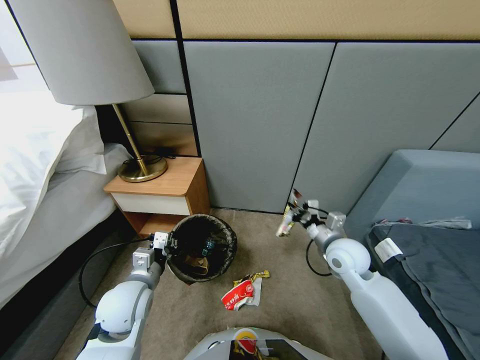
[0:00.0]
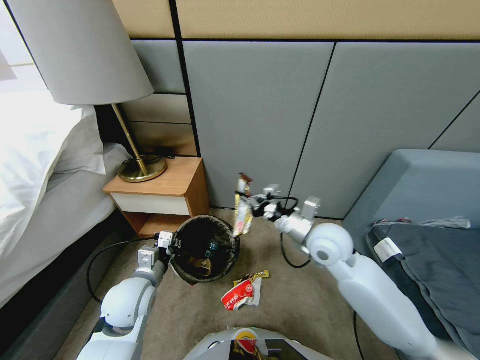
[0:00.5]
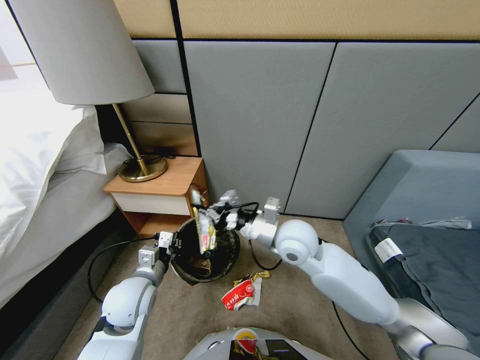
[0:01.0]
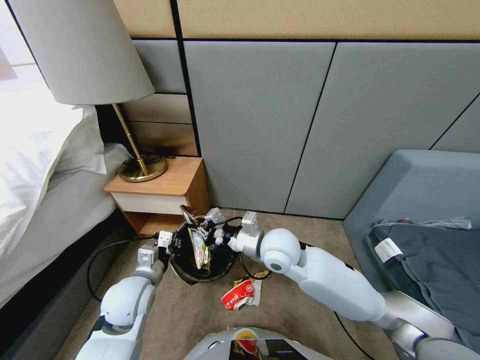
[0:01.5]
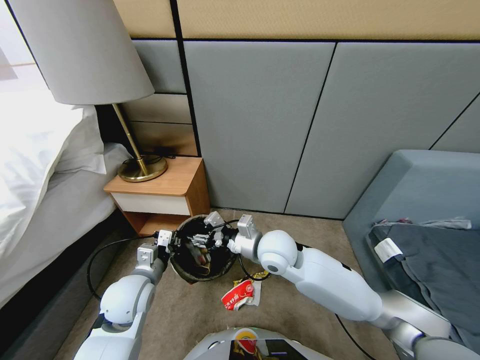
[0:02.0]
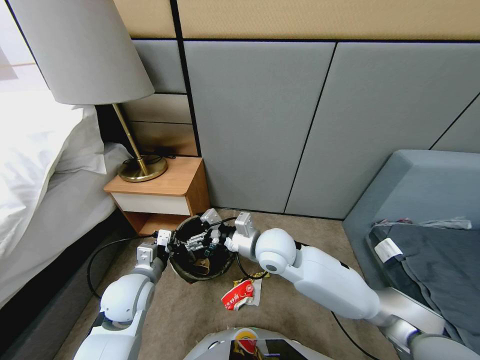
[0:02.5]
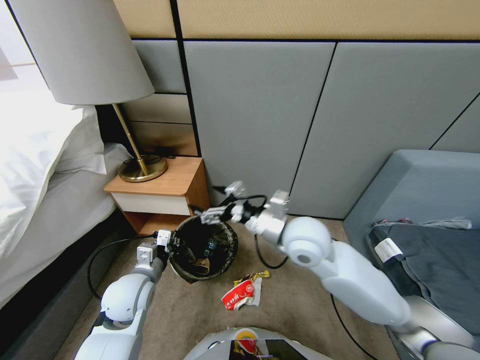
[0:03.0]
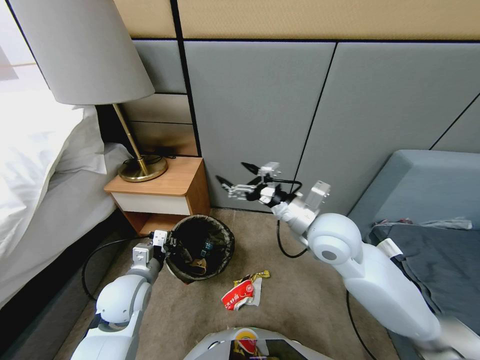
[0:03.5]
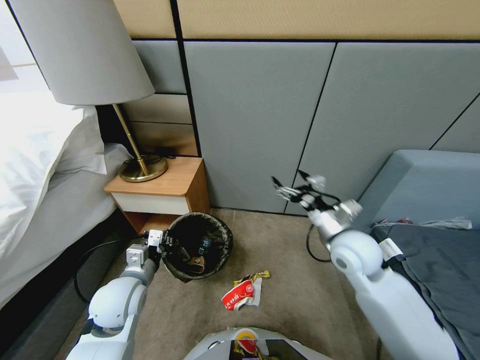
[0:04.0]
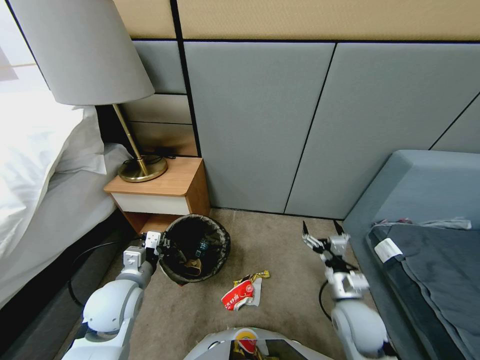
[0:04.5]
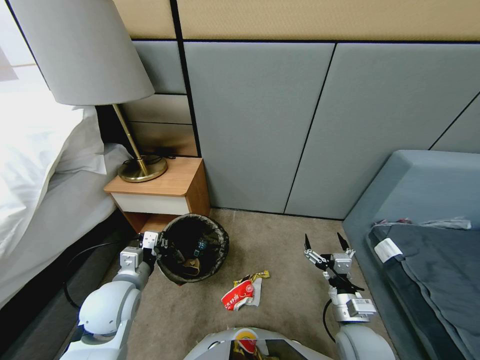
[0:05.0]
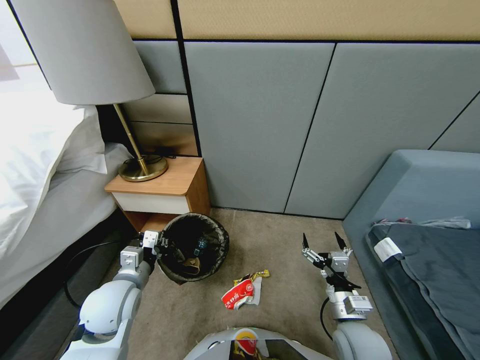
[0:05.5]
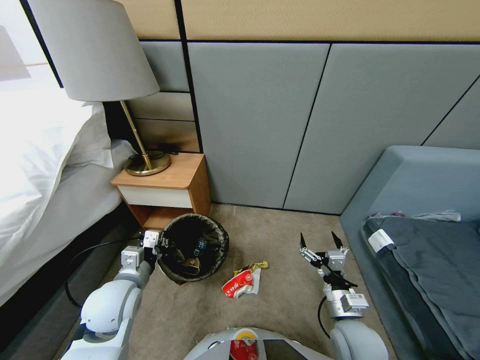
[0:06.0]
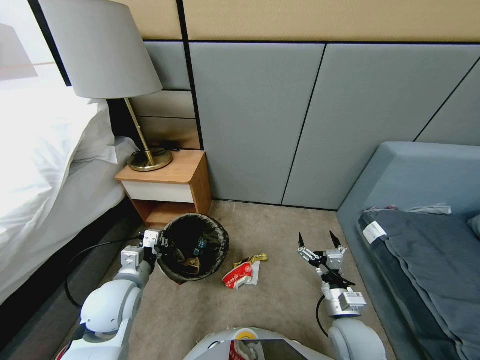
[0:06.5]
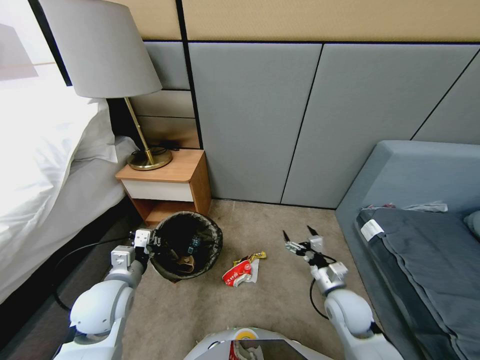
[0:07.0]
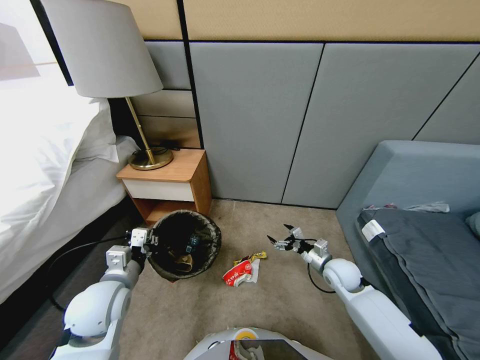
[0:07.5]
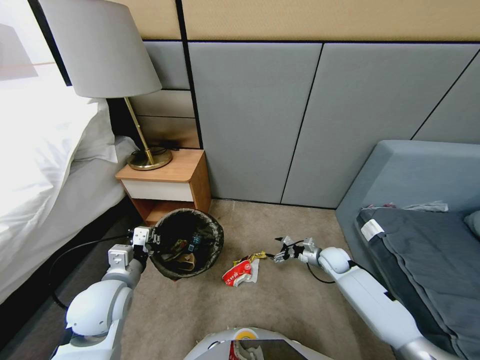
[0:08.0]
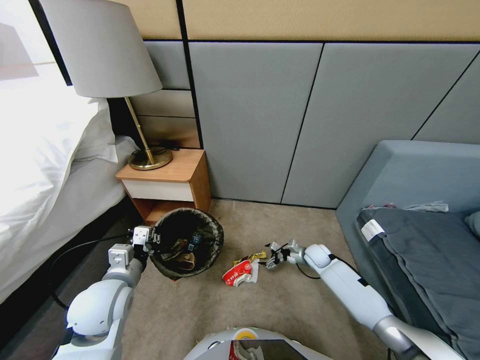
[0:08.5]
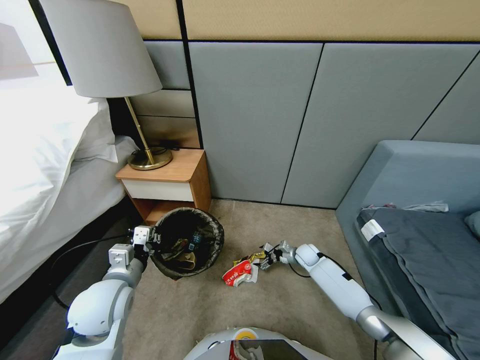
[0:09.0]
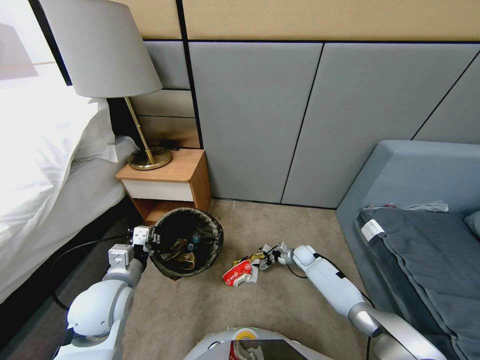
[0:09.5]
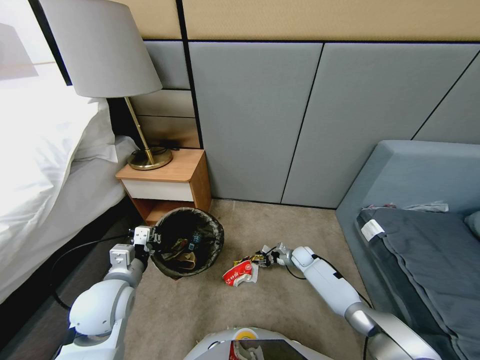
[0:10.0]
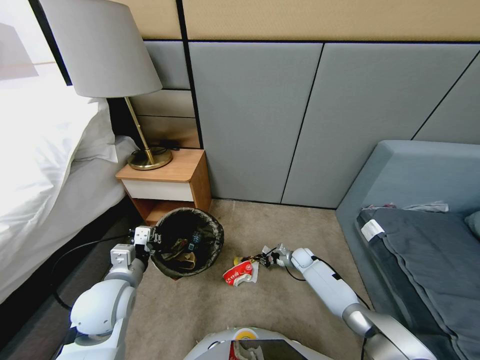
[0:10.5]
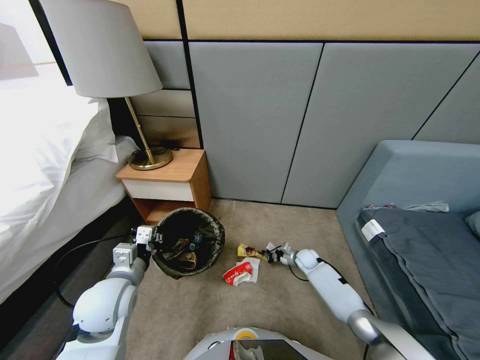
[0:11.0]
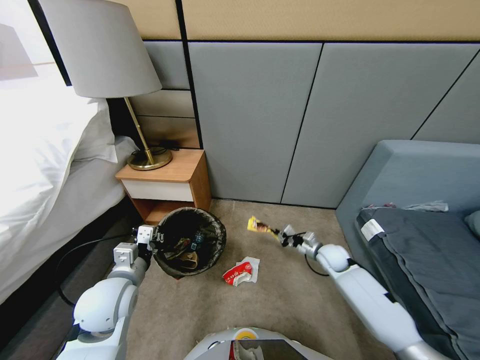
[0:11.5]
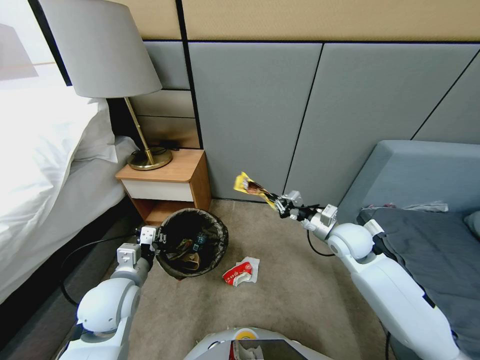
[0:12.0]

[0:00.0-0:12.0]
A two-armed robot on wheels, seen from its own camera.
Task of the whole recording: Pick up the trash bin, then pick up the garbage from the floor and place it into the trash bin.
0:00.0 to 0:02.0: The right gripper goes some 15 cm to the left, and opens up.
0:02.0 to 0:04.0: The right gripper travels to the right by roughly 20 cm.
0:04.0 to 0:06.0: The right gripper travels backward and downward by about 15 cm.
0:06.0 to 0:08.0: The right gripper heads forward and downward, covering some 25 cm.
0:08.0 to 0:10.0: The right gripper is displaced downward and to the left by about 10 cm, and closes up.
0:10.0 to 0:12.0: The right gripper heads upward, covering roughly 30 cm, and closes up.

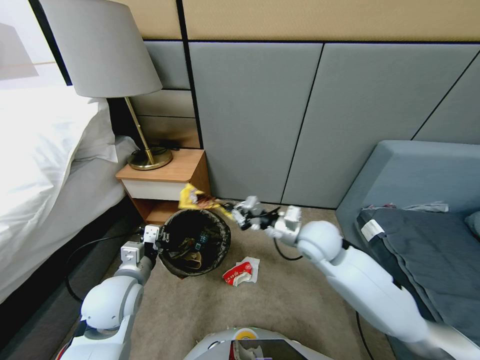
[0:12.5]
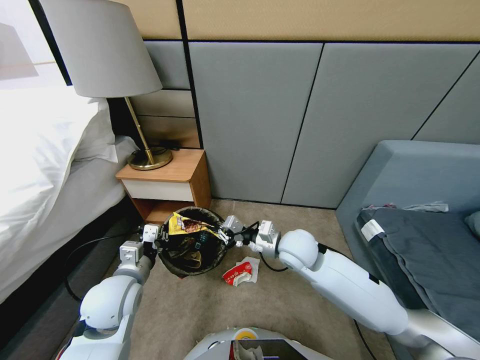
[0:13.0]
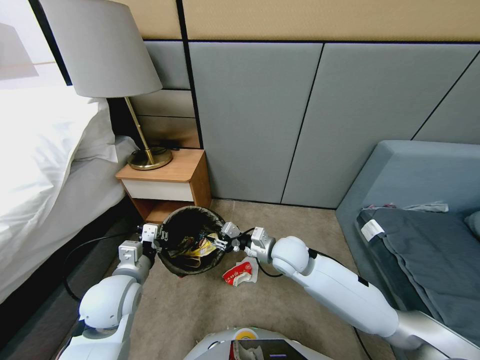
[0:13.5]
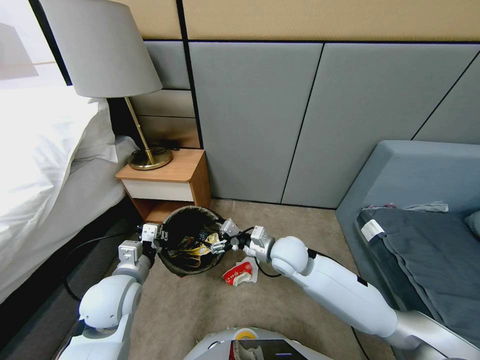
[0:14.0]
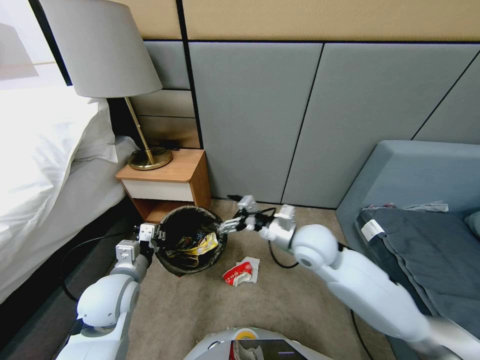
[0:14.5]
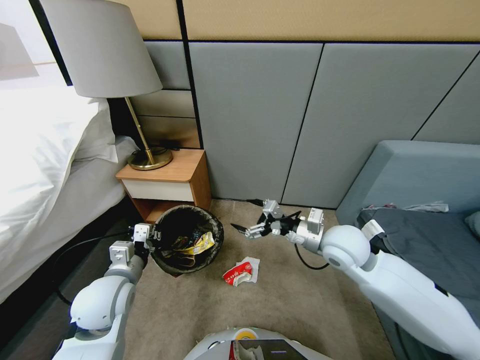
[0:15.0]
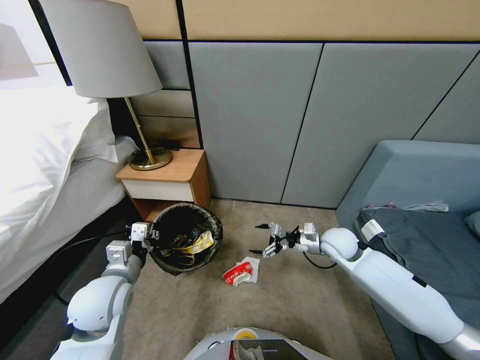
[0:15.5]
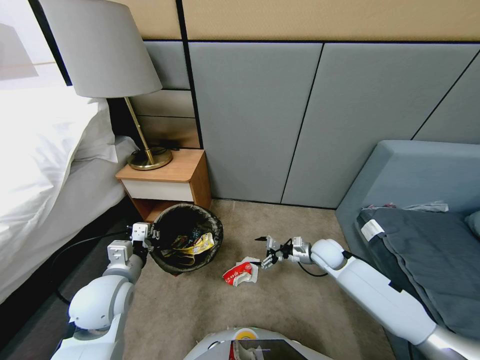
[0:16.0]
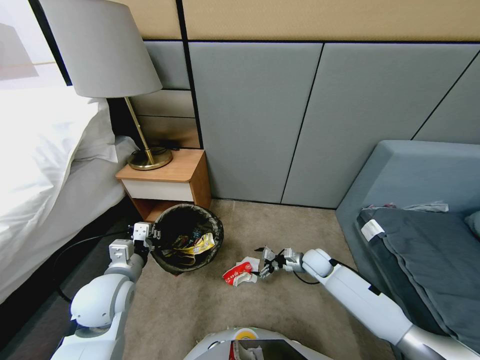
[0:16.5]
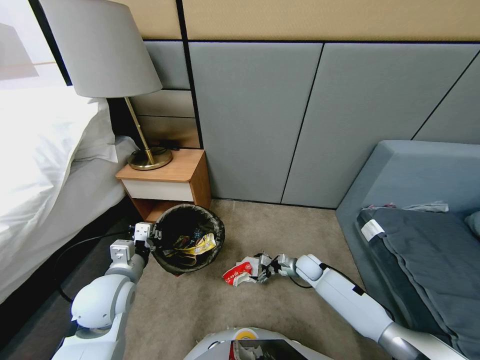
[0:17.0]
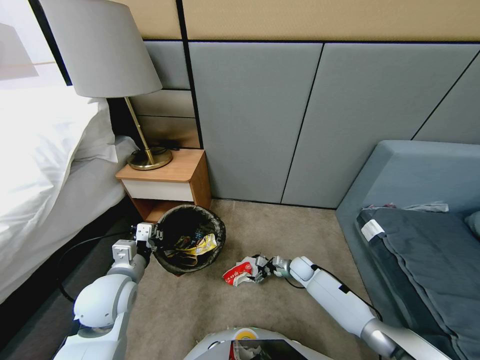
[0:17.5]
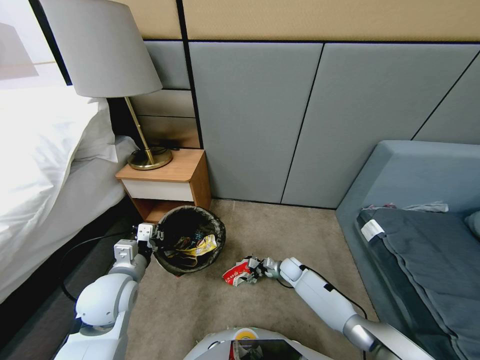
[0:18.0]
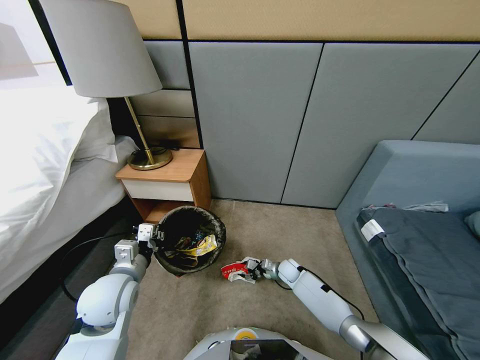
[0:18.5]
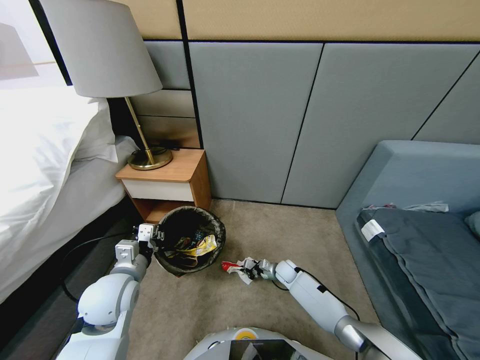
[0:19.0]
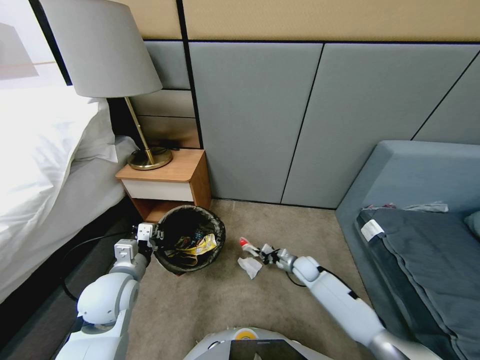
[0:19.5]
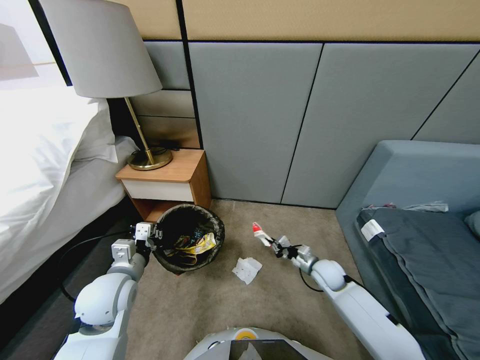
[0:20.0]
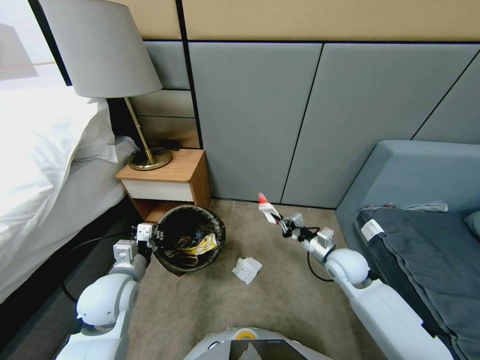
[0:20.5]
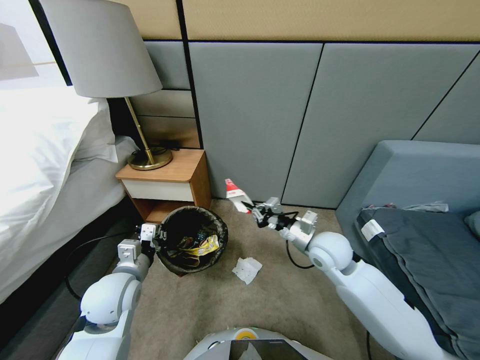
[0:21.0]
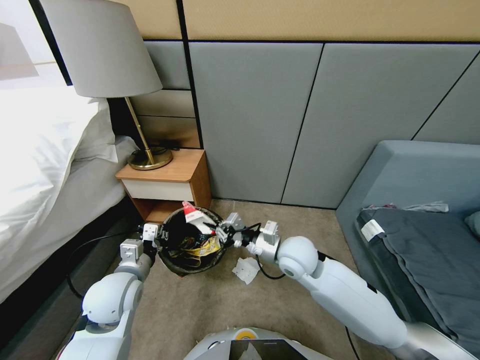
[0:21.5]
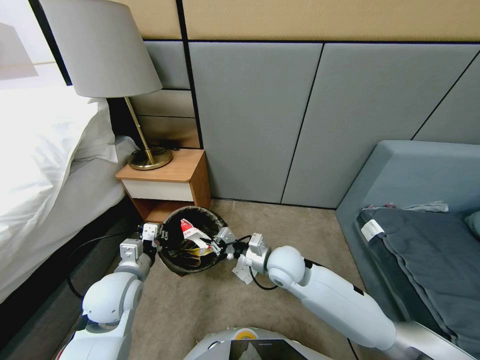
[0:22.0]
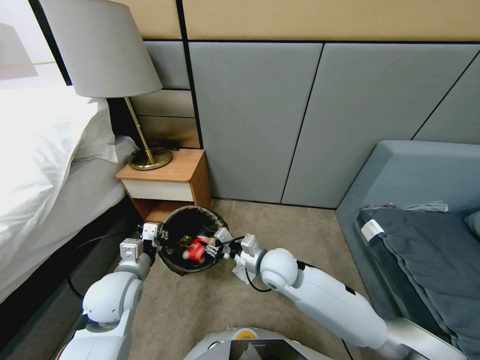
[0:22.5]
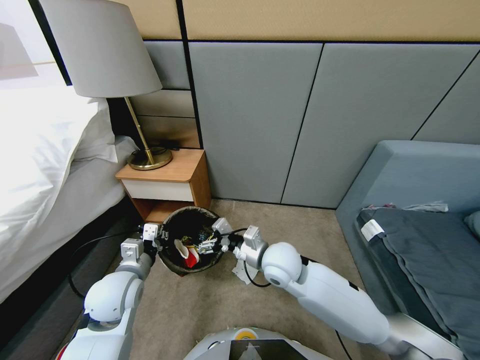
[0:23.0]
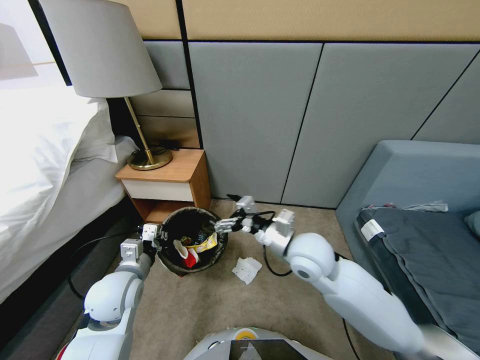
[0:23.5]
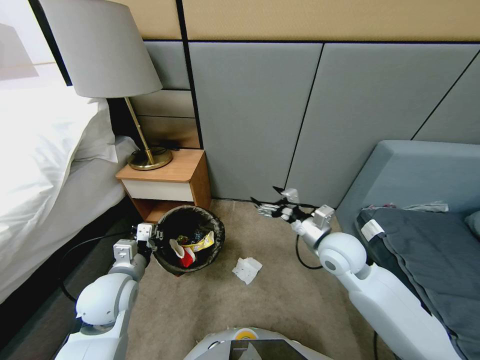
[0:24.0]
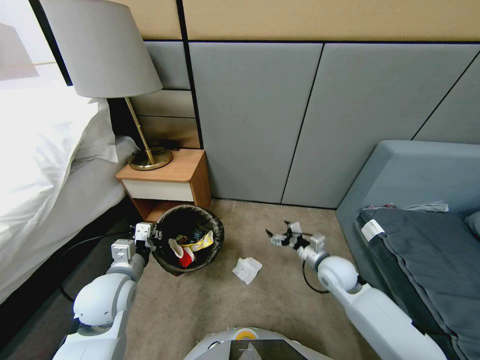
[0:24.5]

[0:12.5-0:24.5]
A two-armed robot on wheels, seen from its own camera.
Task of the whole recording: Pick up the trash bin, then pick up the garbage from the floor and place it into the trash bin.
0:12.5 to 0:14.5: The right gripper reaches approximately 5 cm downward, then returns, and opens its fingers.
0:14.5 to 0:16.5: The right gripper travels downward by approximately 25 cm.
0:16.5 to 0:18.5: The right gripper heads downward and to the left, covering roughly 15 cm, and closes its fingers.
0:18.5 to 0:20.5: The right gripper shifts approximately 30 cm upward, and closes its fingers.
0:20.5 to 0:22.5: The right gripper travels to the left by roughly 20 cm, and opens its fingers.
0:22.5 to 0:24.5: The right gripper shifts about 20 cm to the right and downward, and opens.

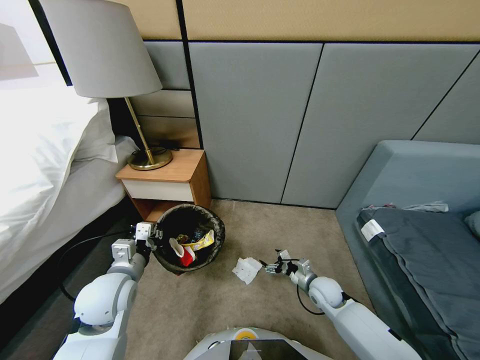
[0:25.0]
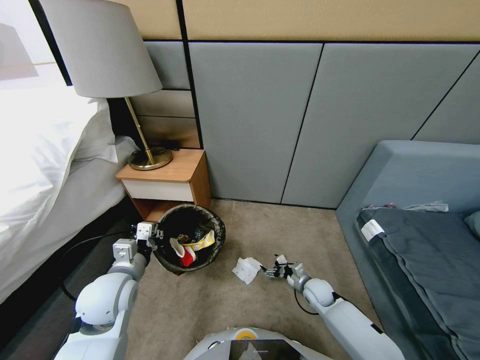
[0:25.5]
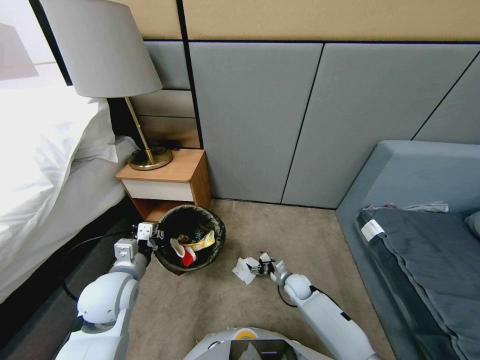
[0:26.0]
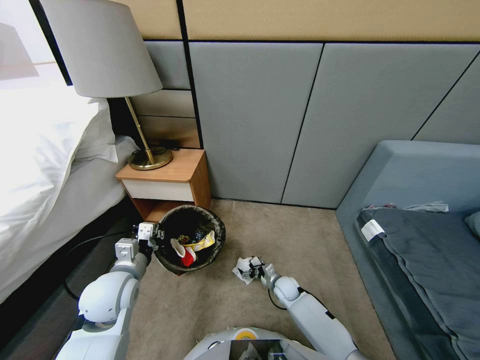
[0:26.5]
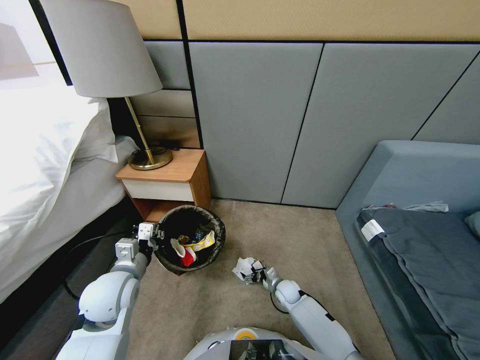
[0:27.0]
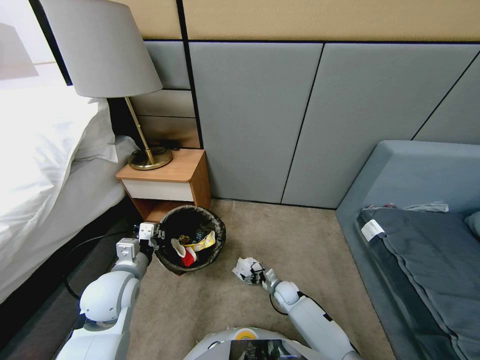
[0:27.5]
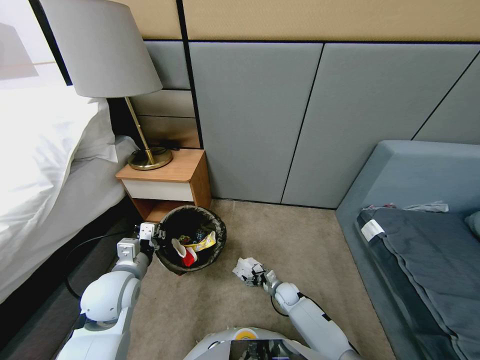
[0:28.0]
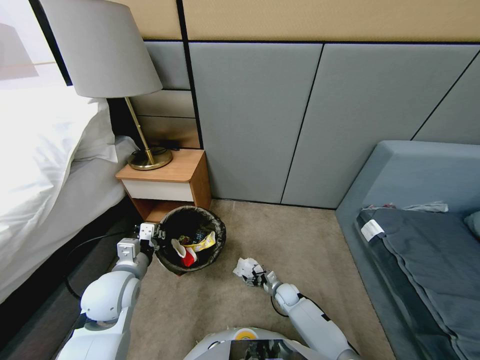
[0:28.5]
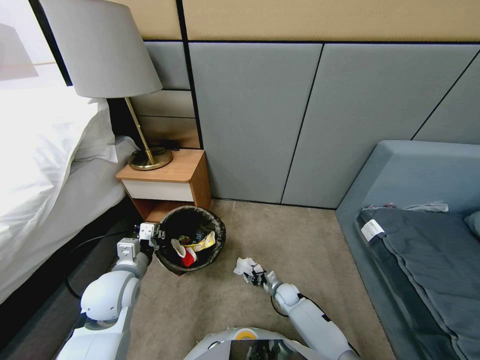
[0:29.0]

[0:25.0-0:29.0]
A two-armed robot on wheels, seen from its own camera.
Task of the whole recording: Pick up the trash bin, then pick up the garbage from the floor and place it into the trash bin.
0:25.0 to 0:27.0: The right gripper heads downward and to the left, covering some 15 cm.
0:27.0 to 0:29.0: The right gripper closes up.
